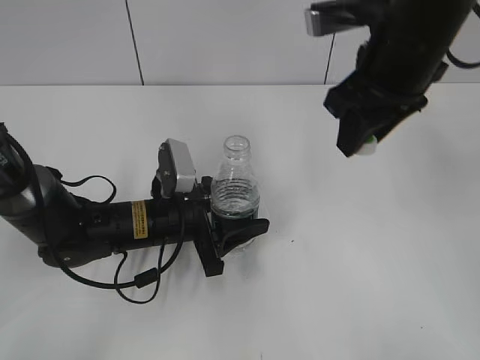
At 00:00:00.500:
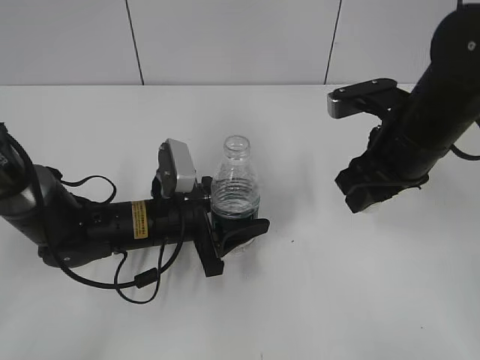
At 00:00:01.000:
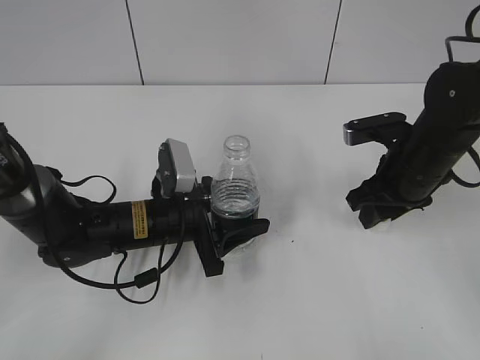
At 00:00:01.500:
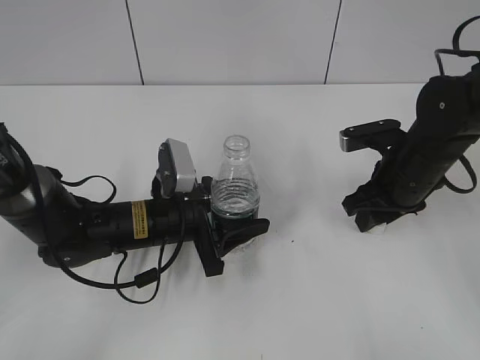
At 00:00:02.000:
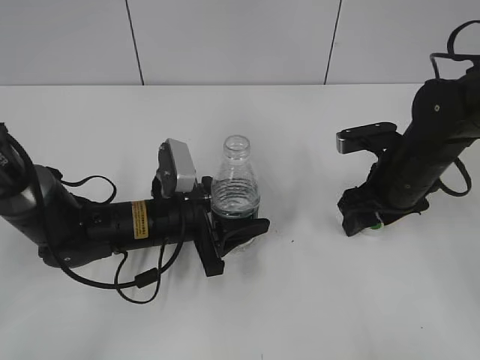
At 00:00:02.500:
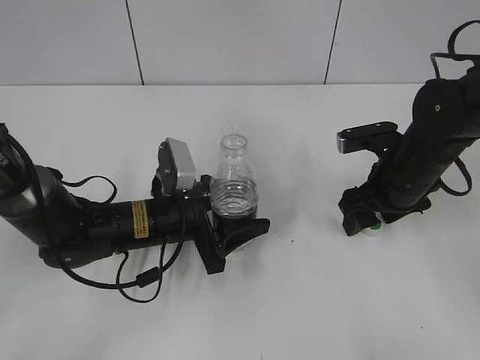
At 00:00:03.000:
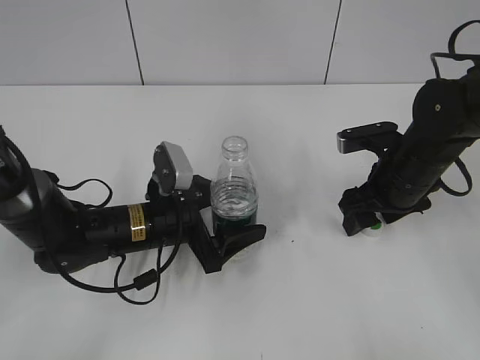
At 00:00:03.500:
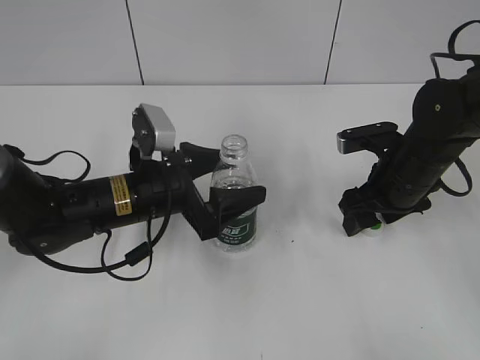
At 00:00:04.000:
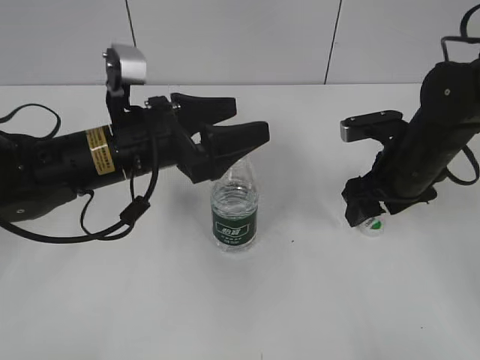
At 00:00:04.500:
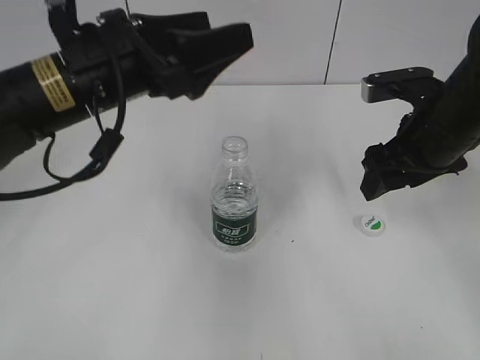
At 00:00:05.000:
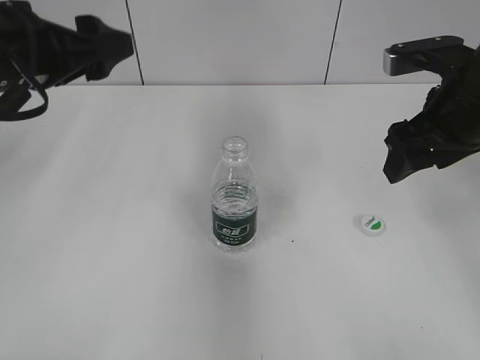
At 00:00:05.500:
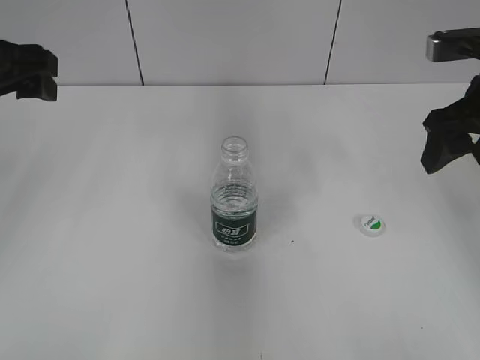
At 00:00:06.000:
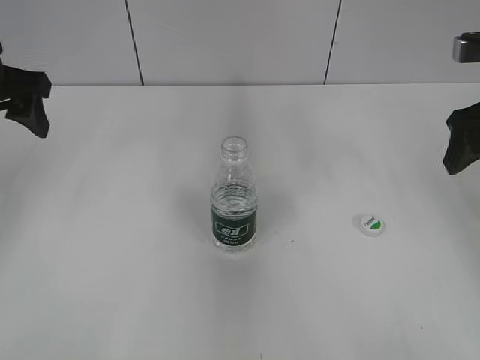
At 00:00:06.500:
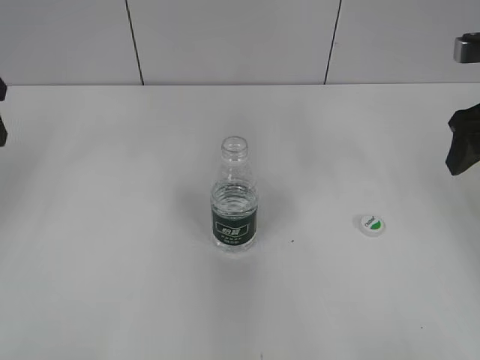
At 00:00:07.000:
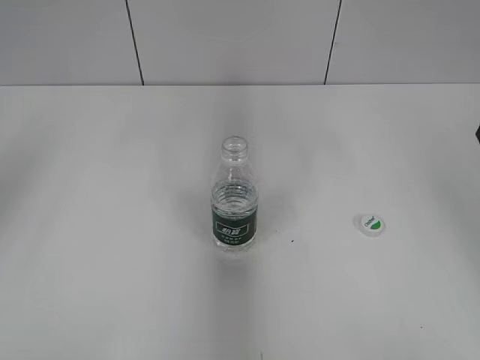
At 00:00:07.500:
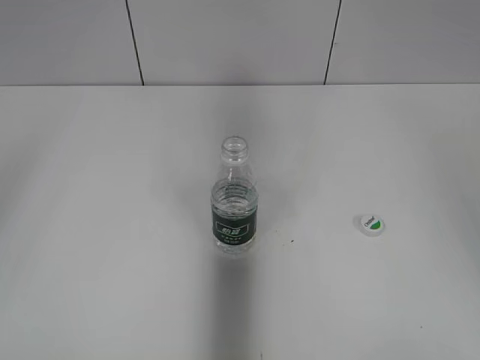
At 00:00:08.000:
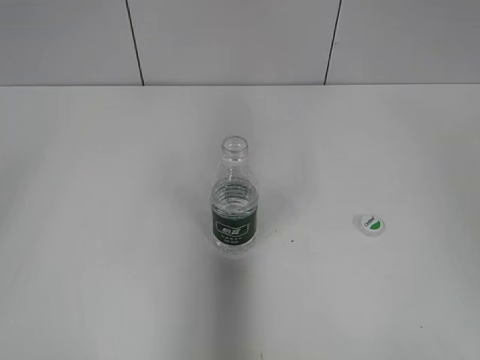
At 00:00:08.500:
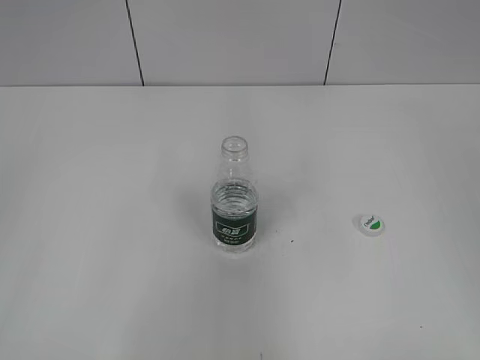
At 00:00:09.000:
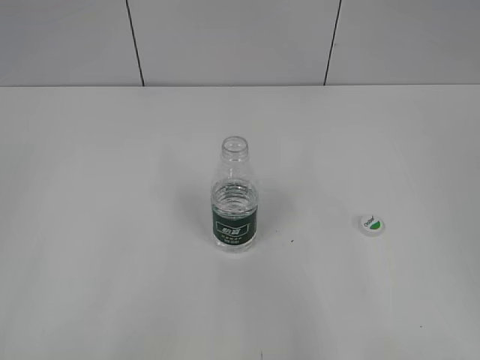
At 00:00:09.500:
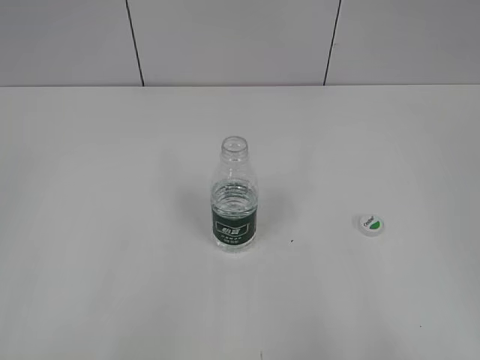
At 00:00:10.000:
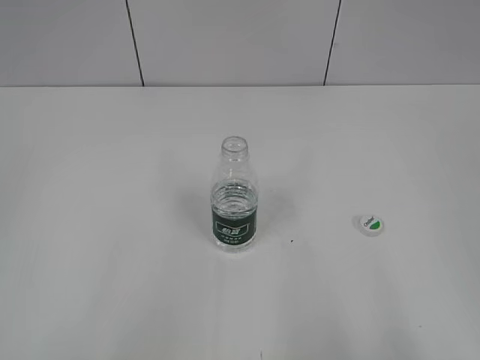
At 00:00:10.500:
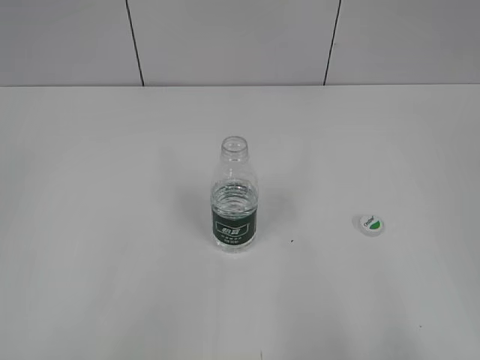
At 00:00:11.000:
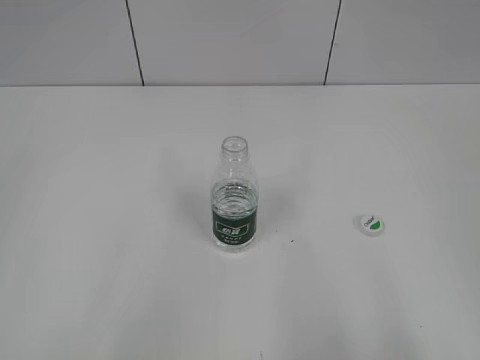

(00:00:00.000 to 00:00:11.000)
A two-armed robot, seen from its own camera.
Step, 00:00:00.000 - 00:00:02.000: Place the bottle cap on the table with the right gripper.
Step, 00:00:02.500 - 00:00:04.000: Place the bottle on the table with the left gripper.
00:00:00.000 - 00:00:02.000: The right gripper shifts some 15 cm downward, and opens up.
00:00:02.000 - 00:00:03.500: The left gripper opens its fingers.
00:00:03.500 - 00:00:05.500: The left gripper goes about 25 cm upward and to the left; the right gripper travels upward by some 15 cm.
00:00:05.500 - 00:00:07.500: The right gripper travels upward and backward by about 15 cm. The left gripper heads backward, upward and to the left, covering about 20 cm.
00:00:07.500 - 00:00:09.000: The right gripper shifts approximately 20 cm backward. Meanwhile the left gripper is displaced backward and downward by some 20 cm.
